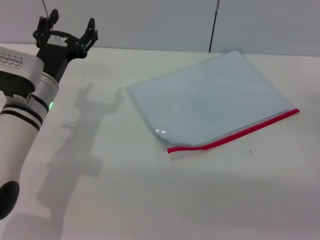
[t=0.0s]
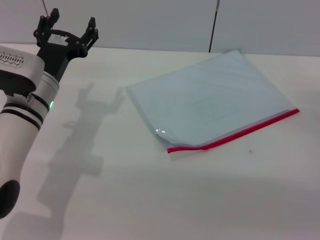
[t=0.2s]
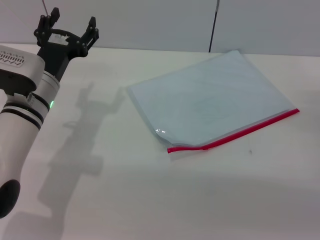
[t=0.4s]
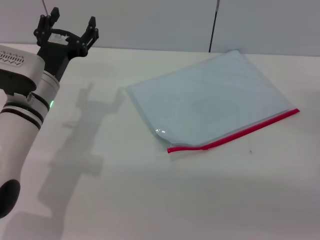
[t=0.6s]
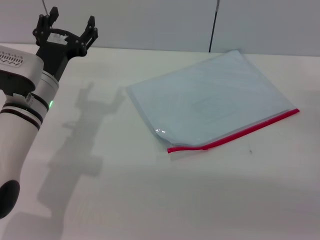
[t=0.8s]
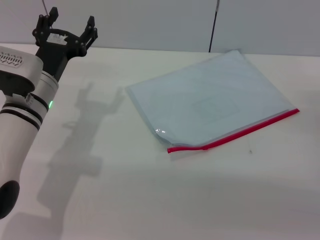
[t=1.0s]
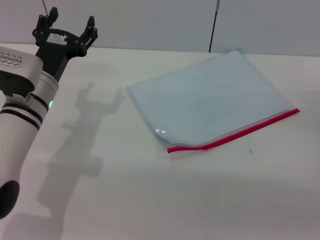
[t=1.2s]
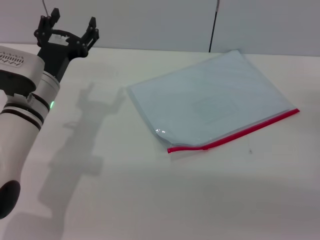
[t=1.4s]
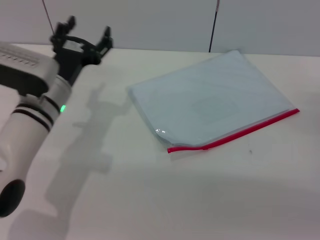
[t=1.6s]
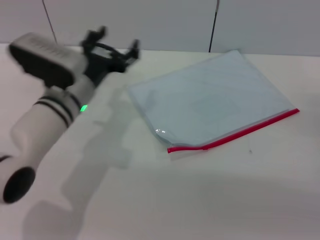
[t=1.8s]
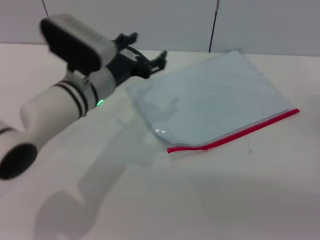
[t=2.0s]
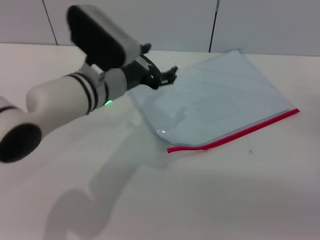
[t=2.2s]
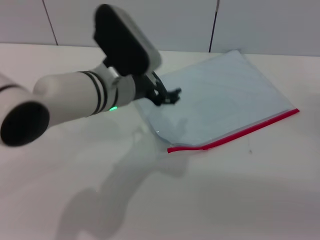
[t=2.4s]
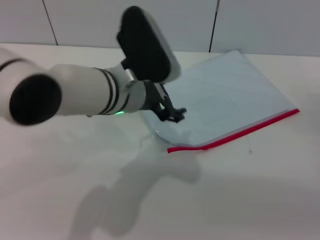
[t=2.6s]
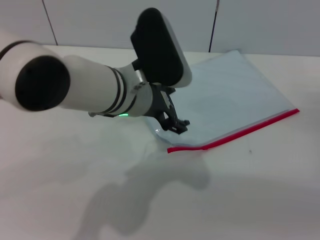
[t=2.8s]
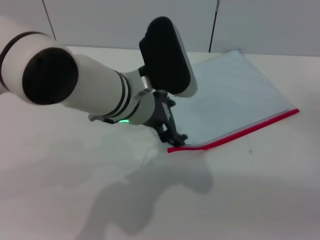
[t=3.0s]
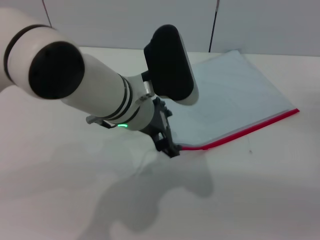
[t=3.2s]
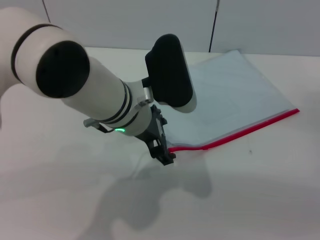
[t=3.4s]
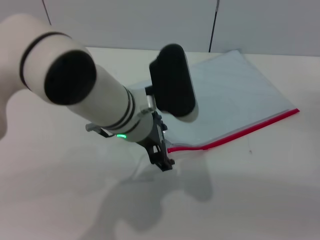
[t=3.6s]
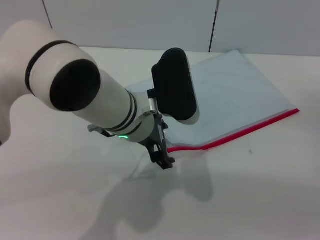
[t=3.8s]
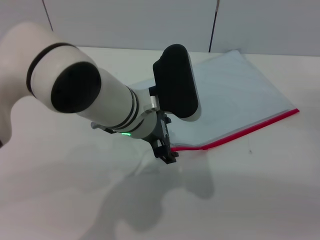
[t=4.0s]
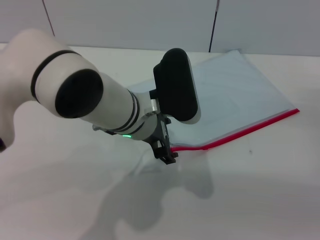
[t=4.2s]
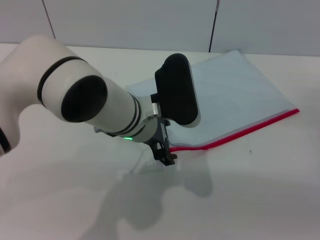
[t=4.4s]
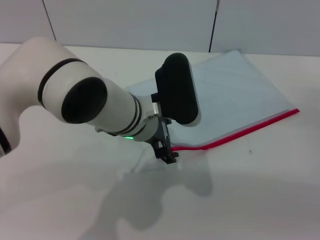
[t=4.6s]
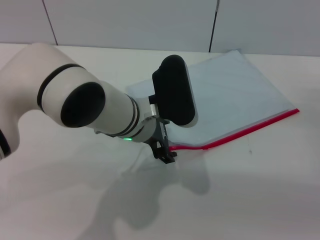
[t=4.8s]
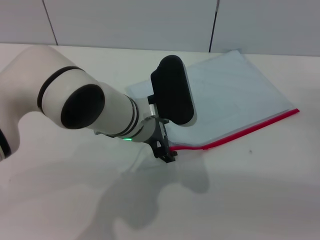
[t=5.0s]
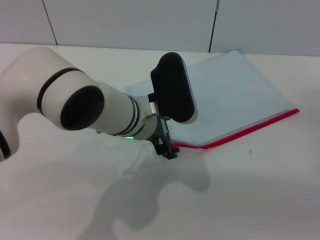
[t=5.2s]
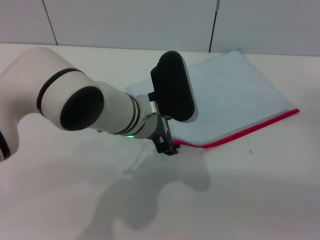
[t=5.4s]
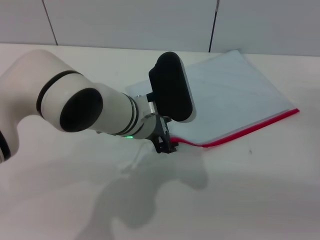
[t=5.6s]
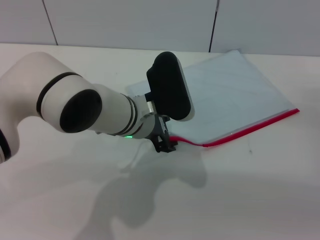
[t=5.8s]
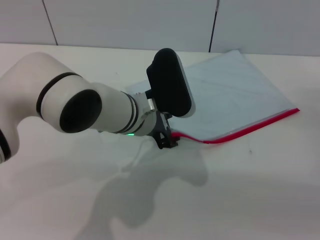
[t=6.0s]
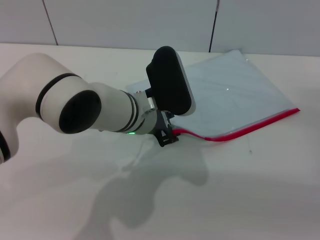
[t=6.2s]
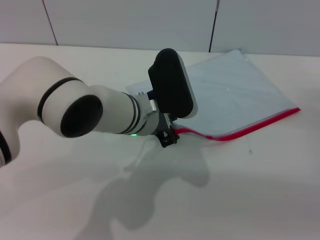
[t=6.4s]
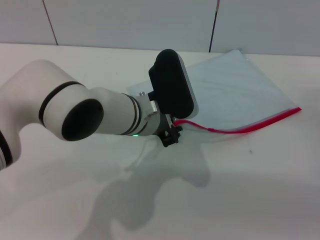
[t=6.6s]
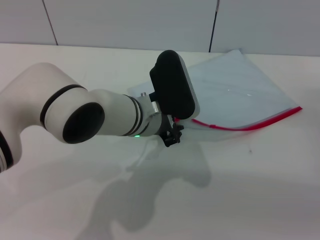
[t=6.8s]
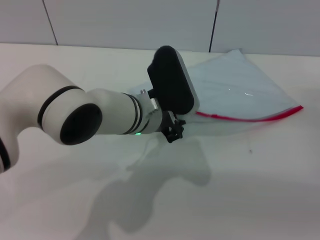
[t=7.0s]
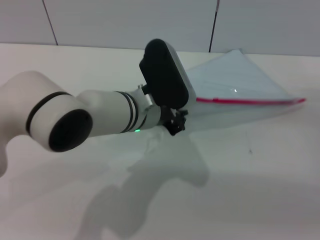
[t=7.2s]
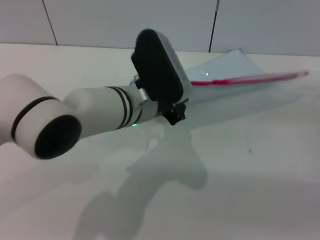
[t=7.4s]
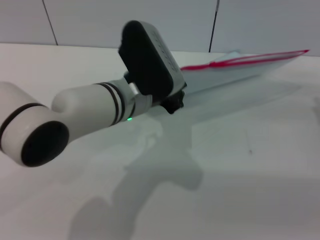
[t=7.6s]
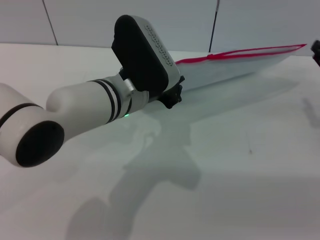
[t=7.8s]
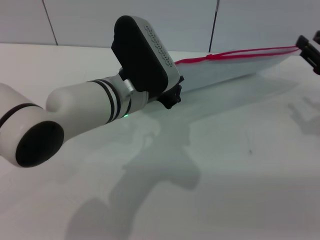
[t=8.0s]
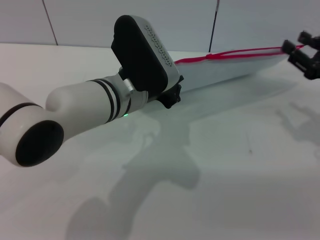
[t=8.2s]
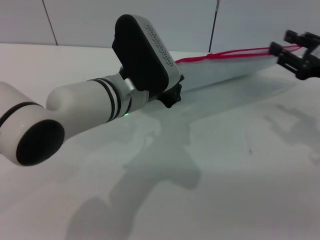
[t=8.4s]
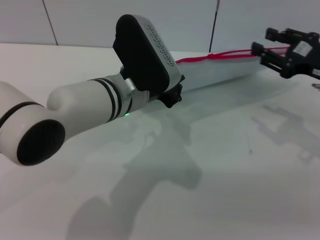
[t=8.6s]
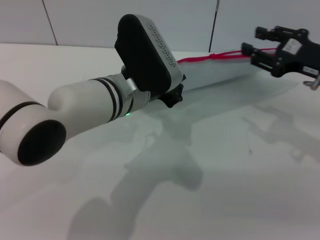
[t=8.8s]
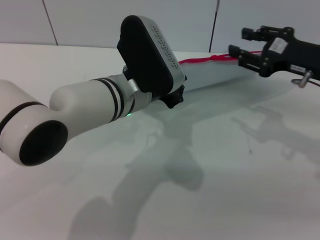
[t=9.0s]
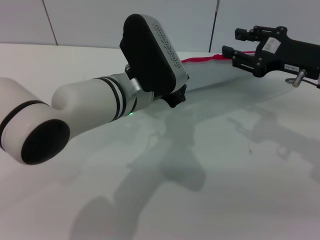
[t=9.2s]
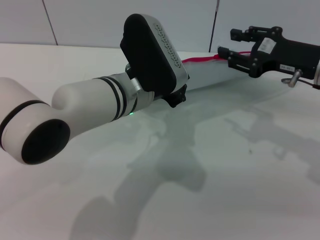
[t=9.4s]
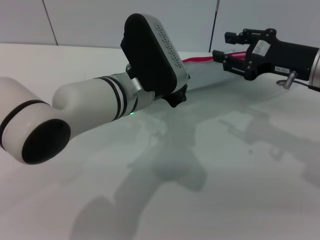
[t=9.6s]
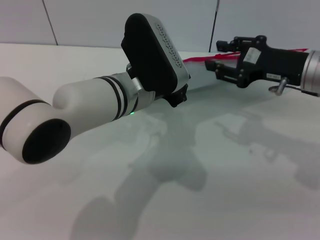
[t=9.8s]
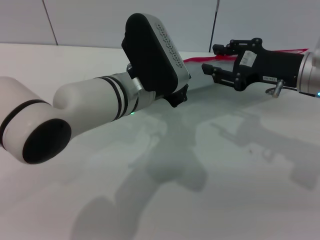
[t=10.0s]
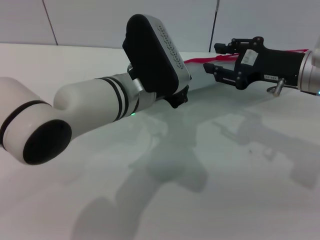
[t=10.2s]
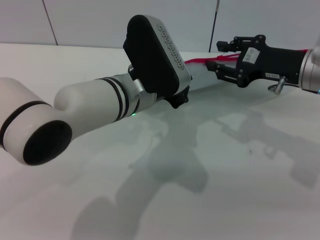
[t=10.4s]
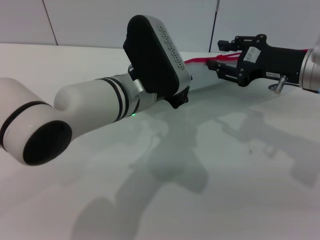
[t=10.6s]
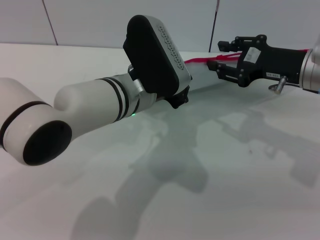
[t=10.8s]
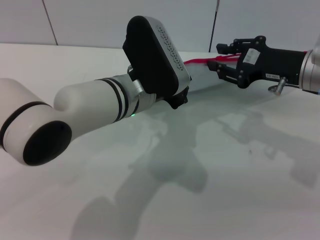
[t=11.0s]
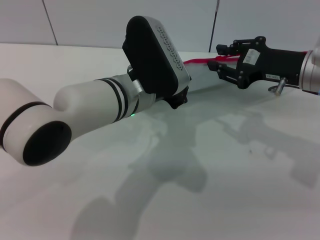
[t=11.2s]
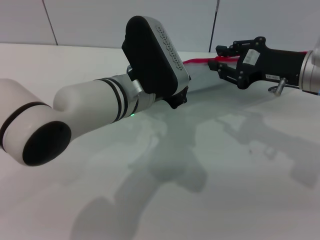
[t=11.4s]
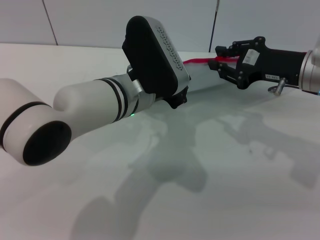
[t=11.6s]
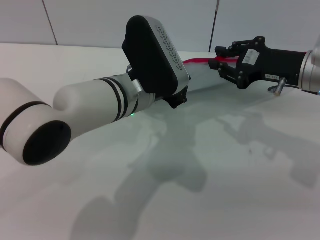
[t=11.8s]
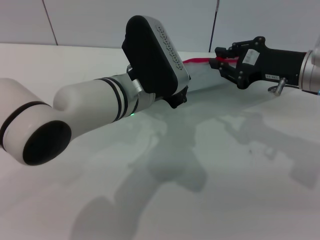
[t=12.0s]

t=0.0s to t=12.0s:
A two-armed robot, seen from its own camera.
Step, t=0.0s to t=7.4s: Pick up the transparent plastic bag with the left gripper.
t=0.0s to t=1.6s: There are only small adjustments of the grippers.
t=1.6s to t=3.0s: The left gripper heads to the right and upward, covering some 15 cm.
t=3.0s to t=6.0s: The grippers stay close to where they were, moving slightly.
t=6.0s to t=7.6s: The left gripper closes up.
t=7.6s to t=9.0s: The right gripper heads upward and to the left, covering roughly 10 cm.
t=9.0s to t=10.4s: The grippers make only small movements.
t=10.4s to t=12.0s: The right gripper closes its fingers.

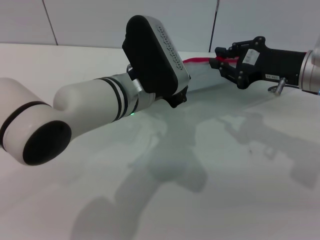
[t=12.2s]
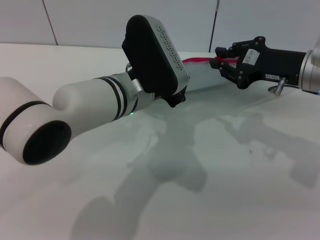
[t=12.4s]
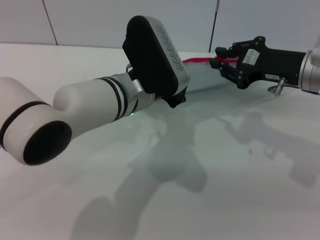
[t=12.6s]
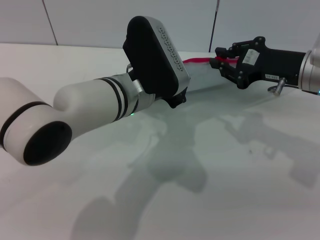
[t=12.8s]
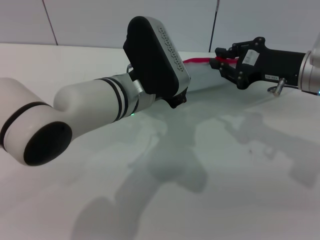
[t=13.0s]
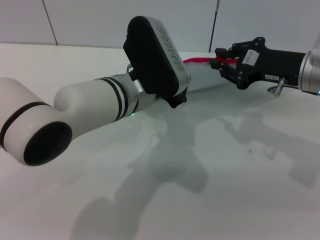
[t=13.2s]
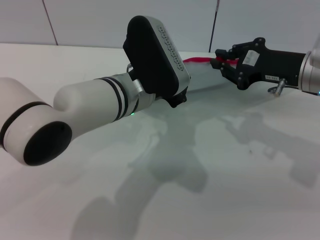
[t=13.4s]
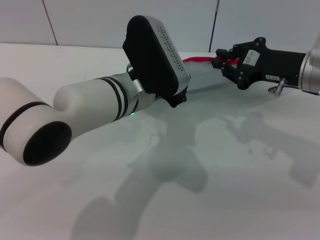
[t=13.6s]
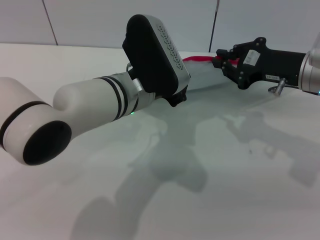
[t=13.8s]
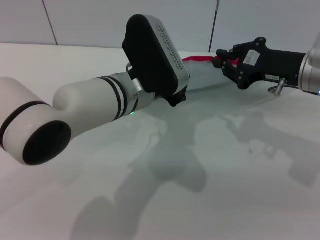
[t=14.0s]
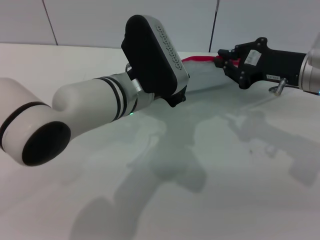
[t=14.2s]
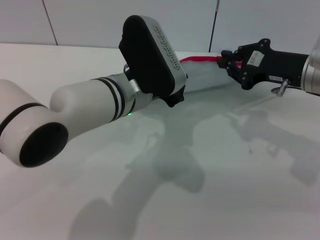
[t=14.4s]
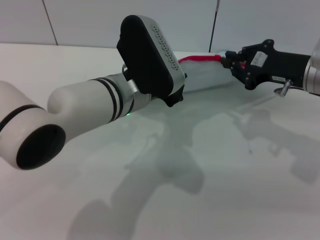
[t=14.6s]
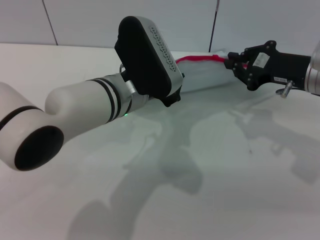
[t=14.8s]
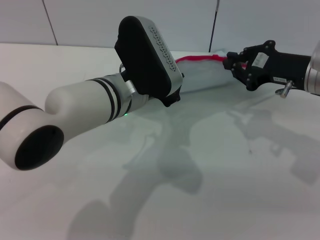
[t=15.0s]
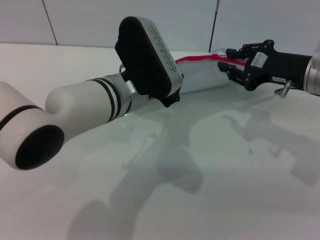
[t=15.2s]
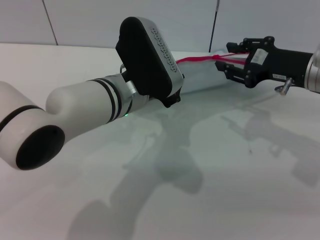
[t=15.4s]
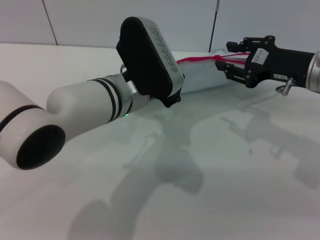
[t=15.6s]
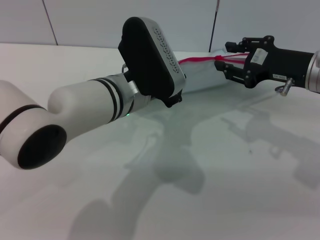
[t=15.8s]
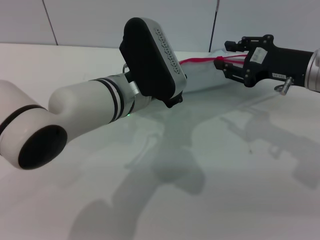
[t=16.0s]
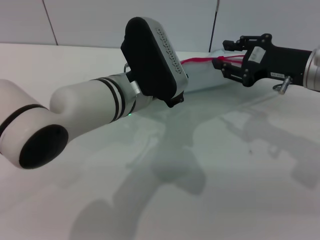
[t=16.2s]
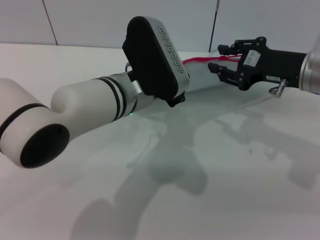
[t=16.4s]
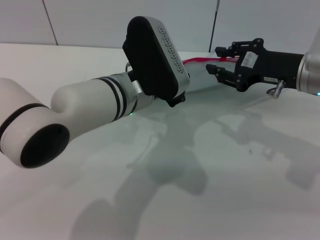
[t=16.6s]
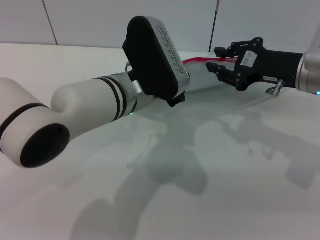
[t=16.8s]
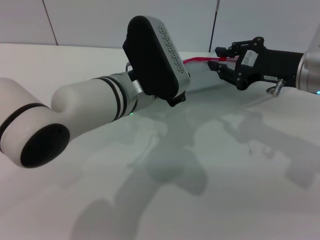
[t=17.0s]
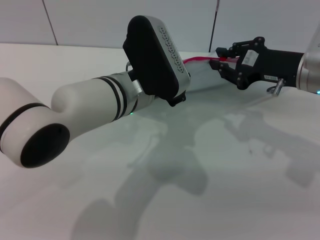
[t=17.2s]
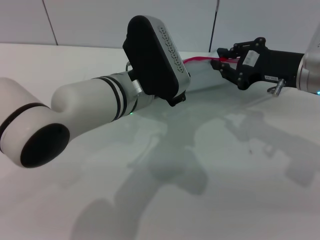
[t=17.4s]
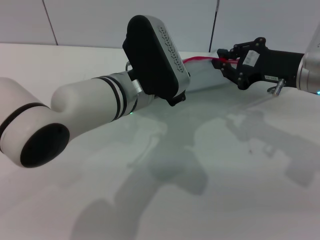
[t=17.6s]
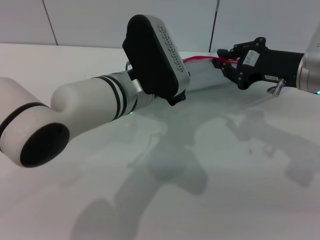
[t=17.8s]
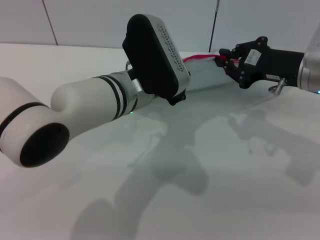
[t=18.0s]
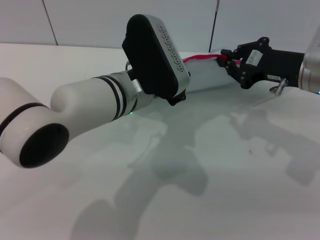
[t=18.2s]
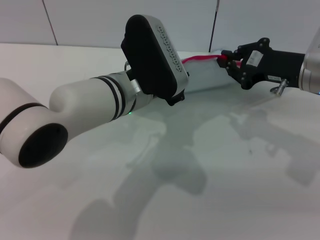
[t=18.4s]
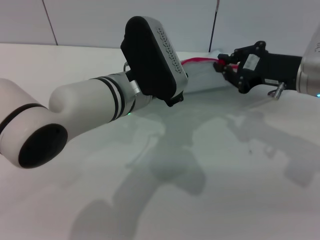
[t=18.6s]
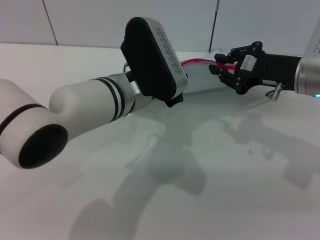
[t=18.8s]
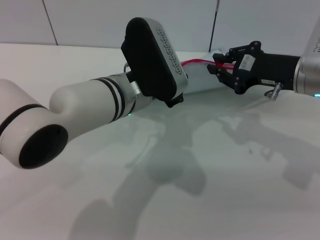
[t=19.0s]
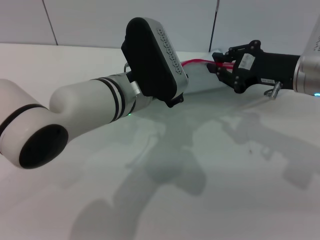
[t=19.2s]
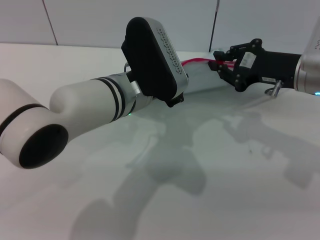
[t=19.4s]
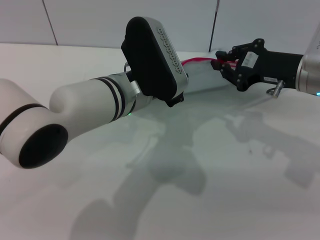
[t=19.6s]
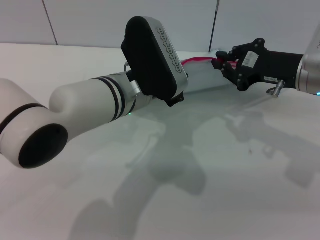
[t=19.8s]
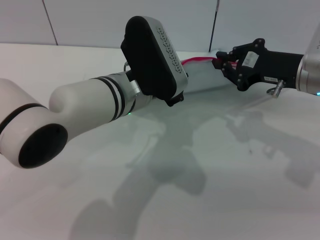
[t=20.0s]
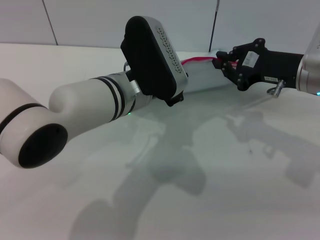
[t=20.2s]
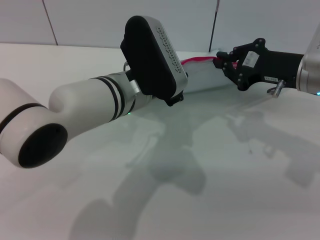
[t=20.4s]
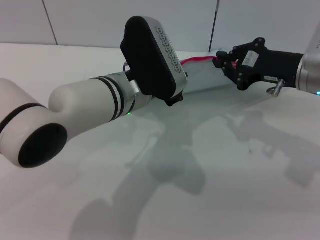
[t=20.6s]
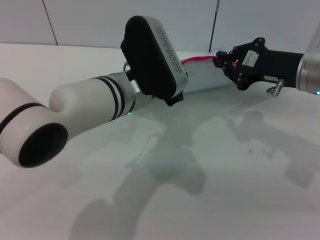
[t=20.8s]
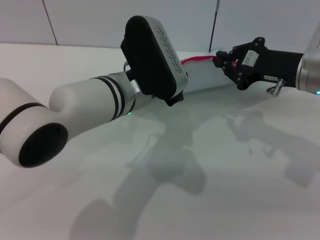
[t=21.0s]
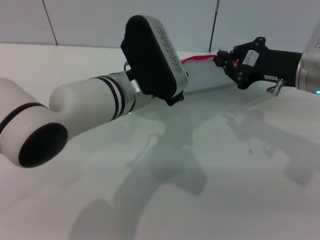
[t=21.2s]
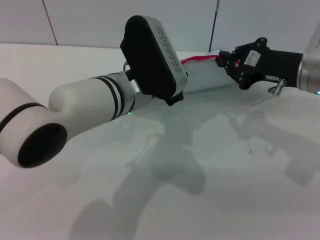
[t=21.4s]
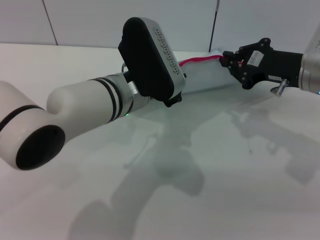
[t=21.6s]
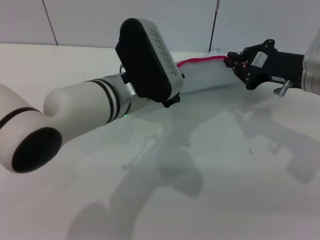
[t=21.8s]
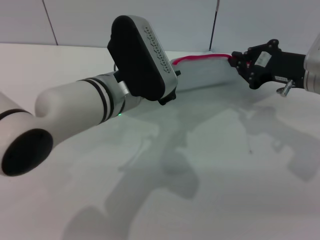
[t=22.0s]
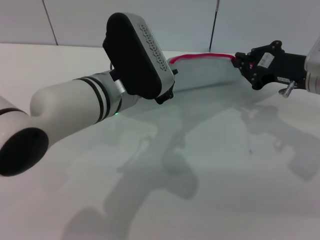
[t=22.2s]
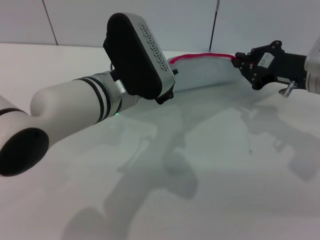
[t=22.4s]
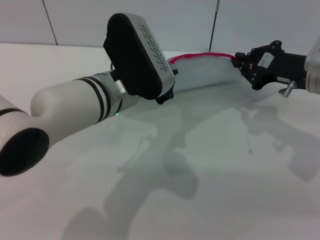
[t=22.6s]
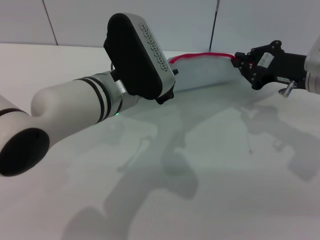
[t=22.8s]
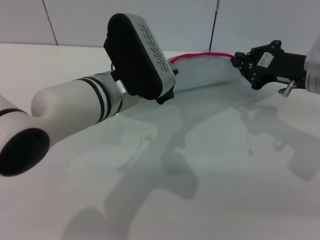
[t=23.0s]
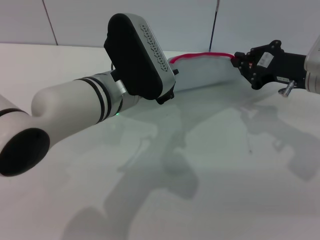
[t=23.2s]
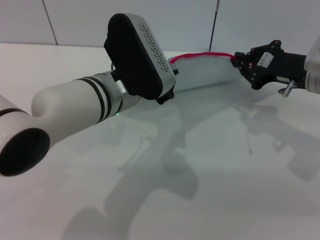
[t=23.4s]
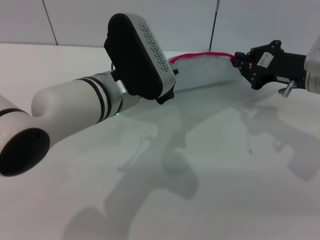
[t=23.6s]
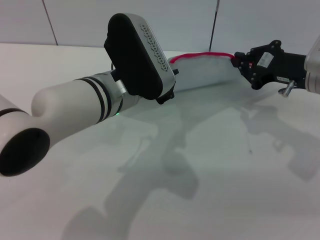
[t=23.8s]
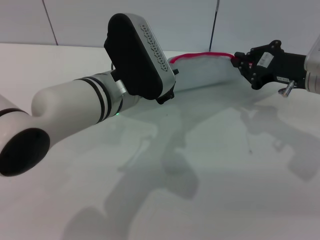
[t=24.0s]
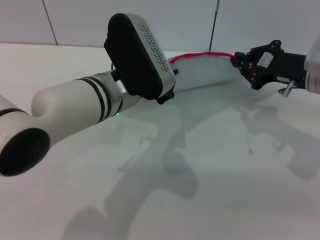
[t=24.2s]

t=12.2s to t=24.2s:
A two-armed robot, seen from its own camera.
t=12.2s to t=13.8s: Both grippers stay about where they are.
t=13.8s to t=15.2s: Neither gripper changes place.
t=15.2s to t=16.6s: The right gripper opens its fingers.
t=16.6s to t=18.2s: The right gripper closes.
t=18.2s to t=21.2s: The two grippers keep their place.
t=21.2s to t=22.6s: There are only small adjustments of the grippers.
t=22.6s to t=24.2s: Neither gripper changes place.
